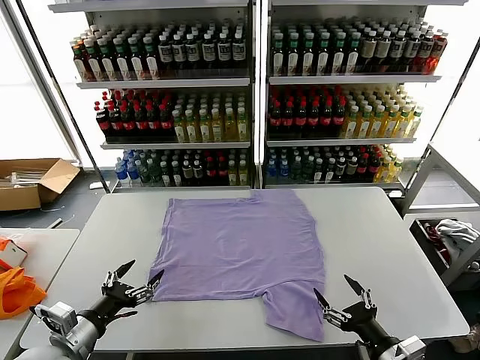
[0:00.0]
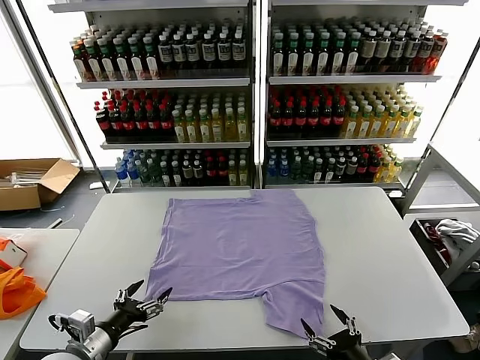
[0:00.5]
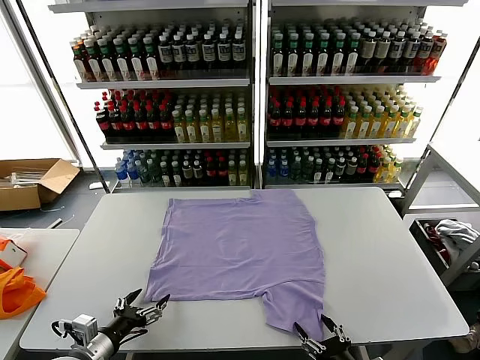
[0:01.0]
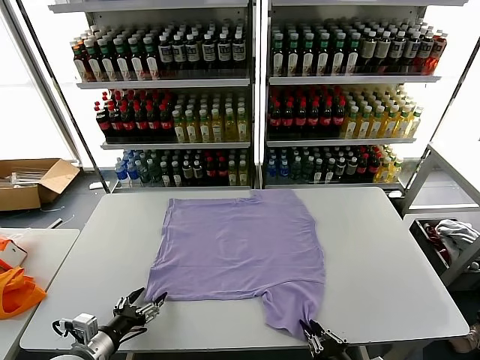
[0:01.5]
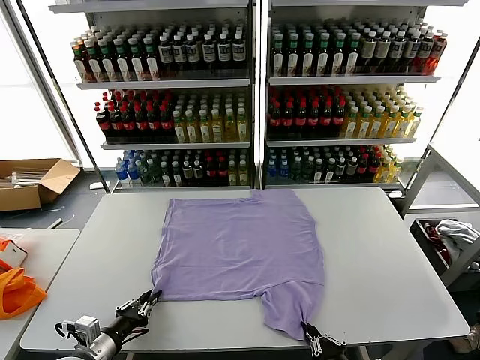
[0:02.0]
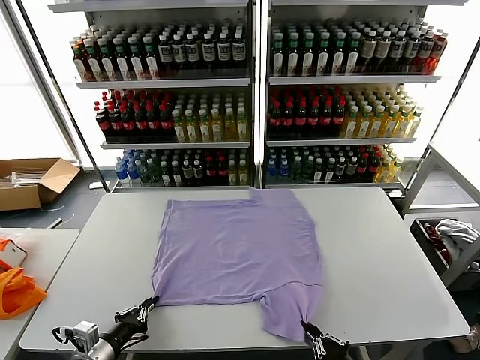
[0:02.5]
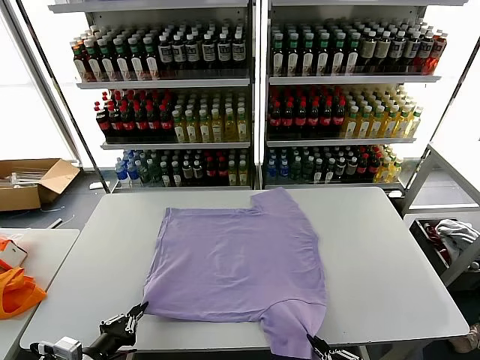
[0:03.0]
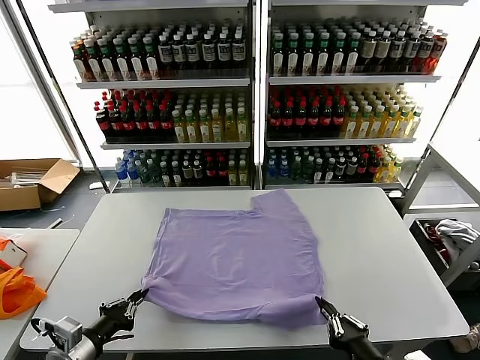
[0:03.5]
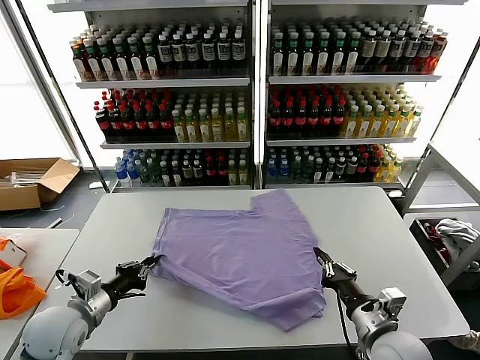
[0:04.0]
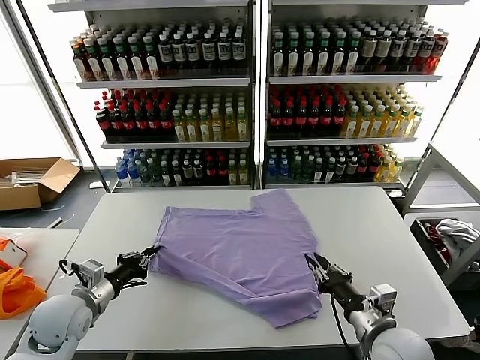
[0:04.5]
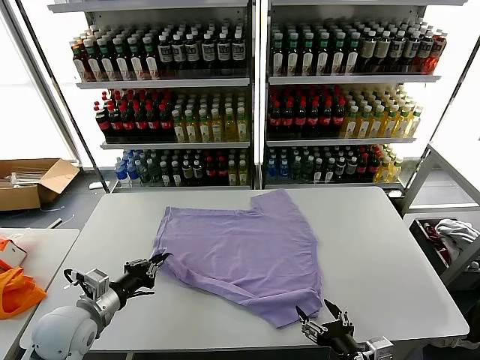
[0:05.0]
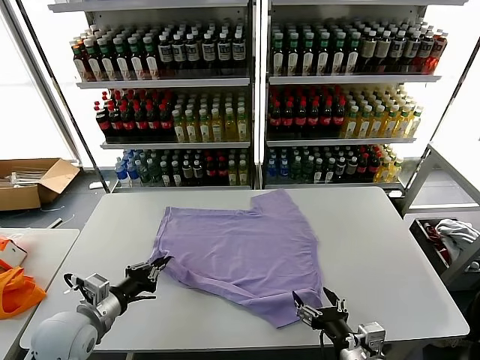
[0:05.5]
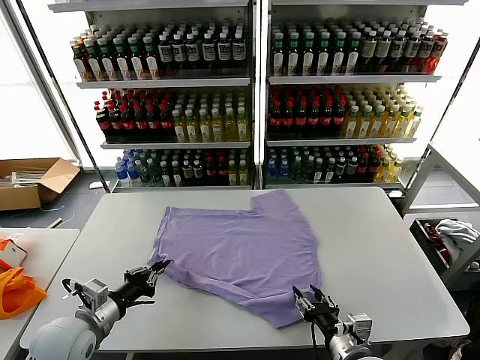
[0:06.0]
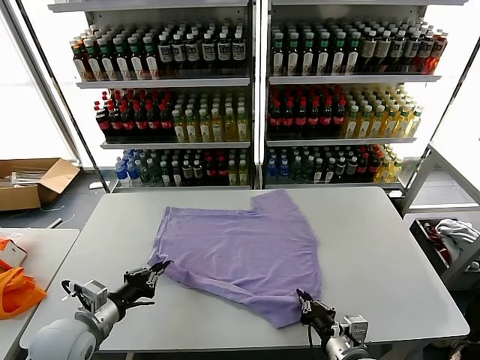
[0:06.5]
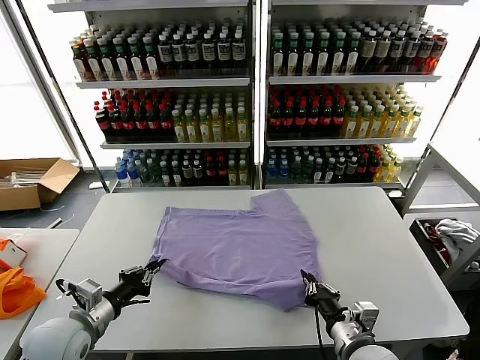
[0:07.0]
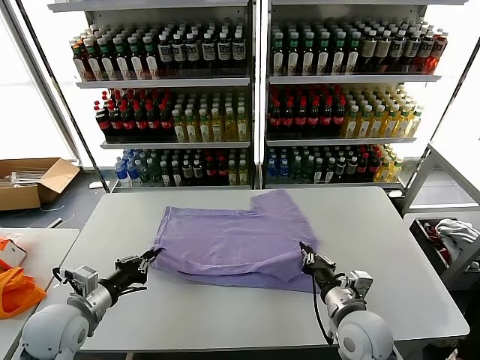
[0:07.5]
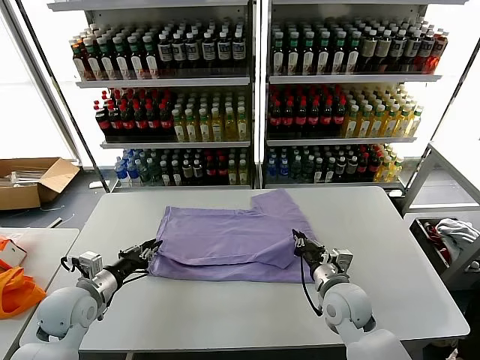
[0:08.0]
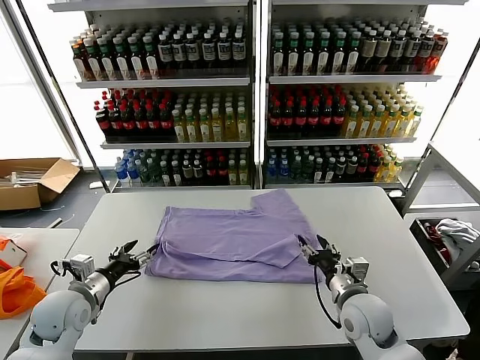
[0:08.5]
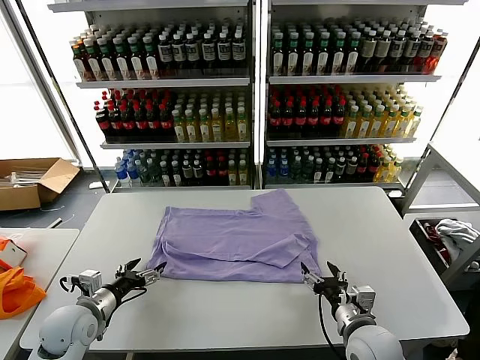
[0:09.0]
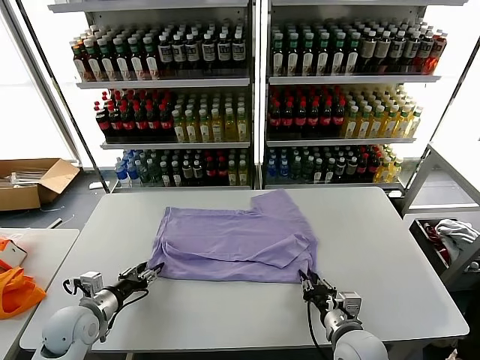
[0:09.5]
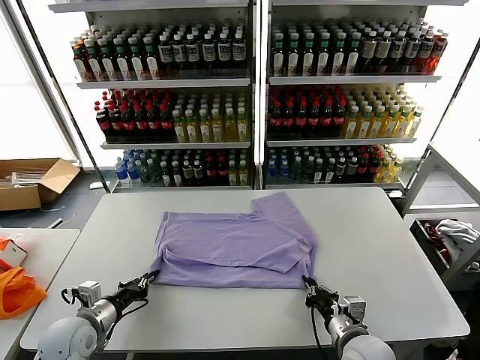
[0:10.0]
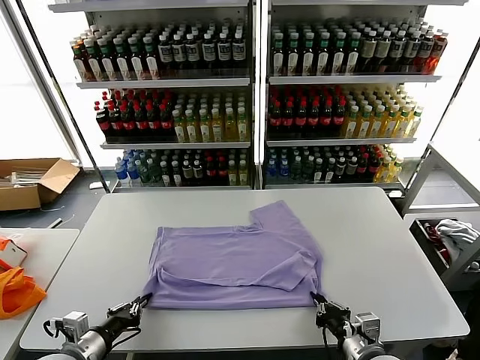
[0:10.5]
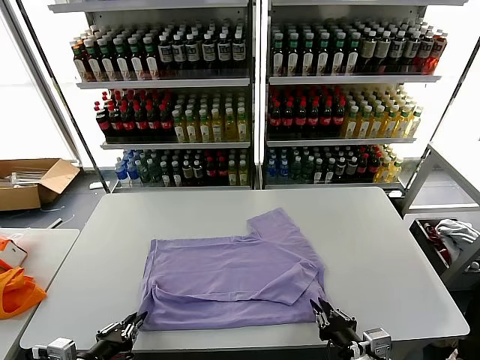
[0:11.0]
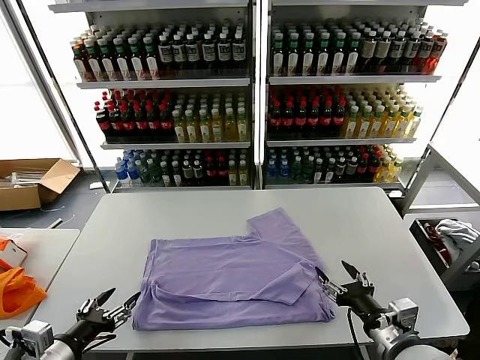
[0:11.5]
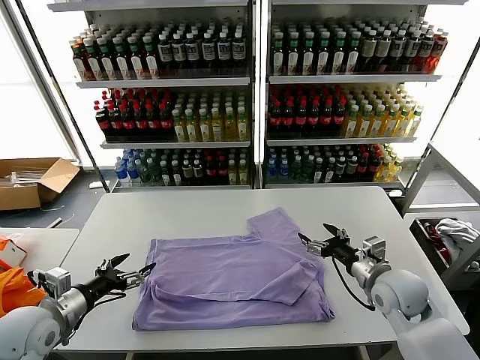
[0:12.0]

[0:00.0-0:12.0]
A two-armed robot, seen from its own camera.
Task of the whole recording: fold and organize the clothes.
Step, 0:00.0 to 0:02.0: use both grippers simultaneously to clamp the lower edge of the clothing fabric.
Step, 0:02.5 to 0:08.0: use both grippers to drag the lower edge of the fabric forward and fold it over the upper edge.
Step, 0:08.5 to 0:11.0: Drag the clothes downward with both gripper.
0:02.0 to 0:04.0: The left gripper goes approximately 10 cm upward and forward; the right gripper is displaced forward and upward by approximately 15 cm.
0:04.0 to 0:06.0: The right gripper goes roughly 5 cm backward, and opens up.
0:06.0 to 0:08.0: The right gripper travels forward by about 15 cm. The left gripper heads forward, covering approximately 5 cm.
0:08.0 to 0:10.0: The left gripper shifts by roughly 5 cm, and opens, then closes once more, while the right gripper goes about 10 cm backward, and opens, then closes again.
0:10.0 to 0:12.0: The left gripper is displaced upward by about 10 cm, travels backward and back again, roughly 15 cm each way, and opens its fingers. The right gripper travels forward, to the right and upward by about 15 cm, and opens its fingers.

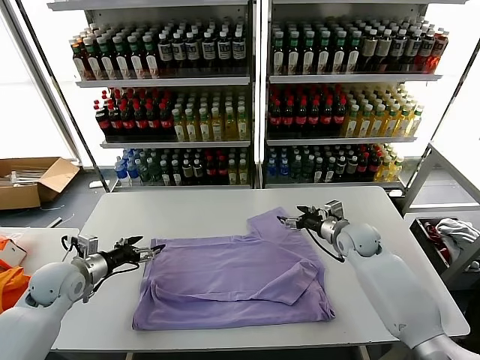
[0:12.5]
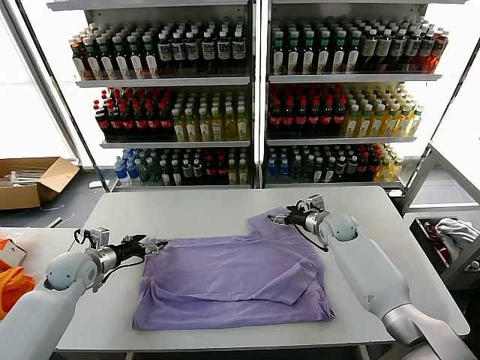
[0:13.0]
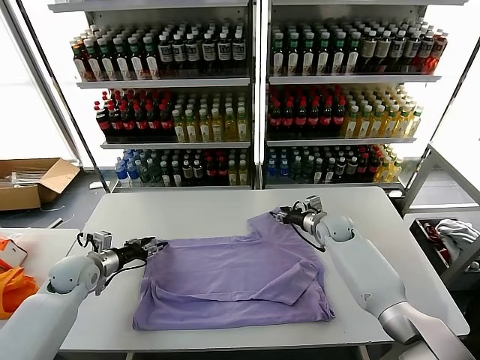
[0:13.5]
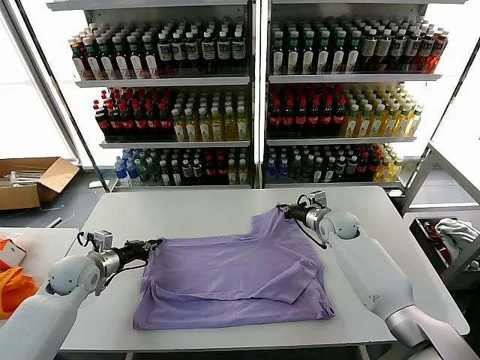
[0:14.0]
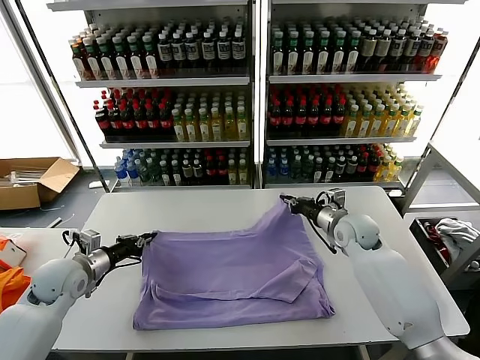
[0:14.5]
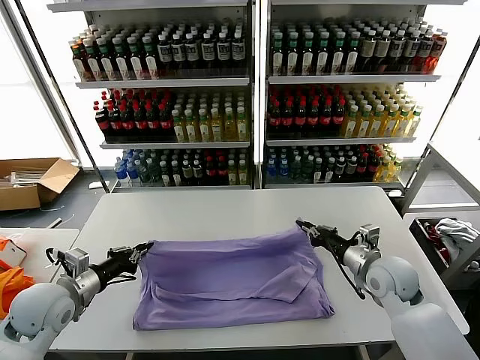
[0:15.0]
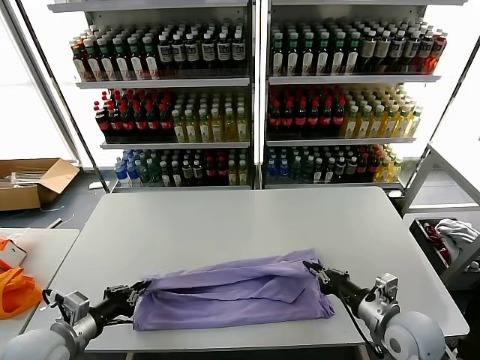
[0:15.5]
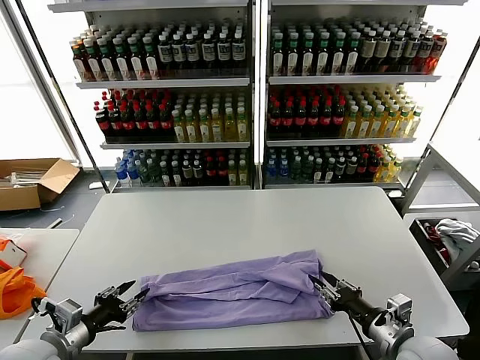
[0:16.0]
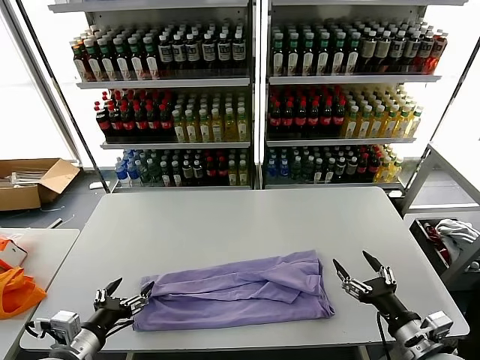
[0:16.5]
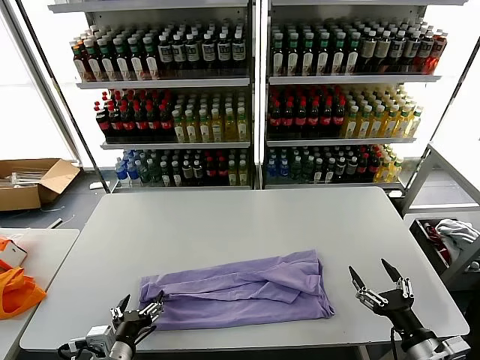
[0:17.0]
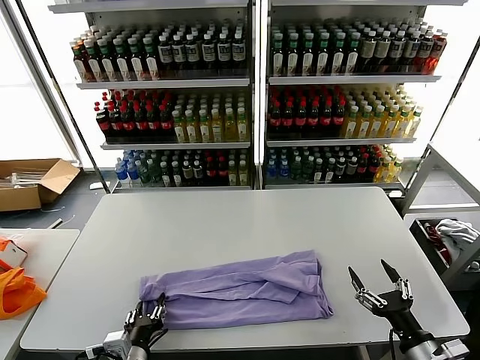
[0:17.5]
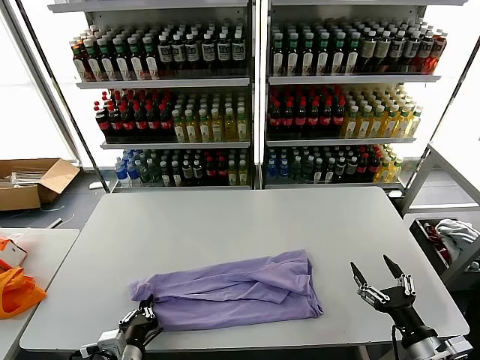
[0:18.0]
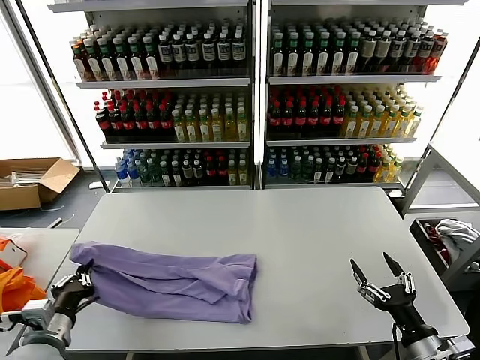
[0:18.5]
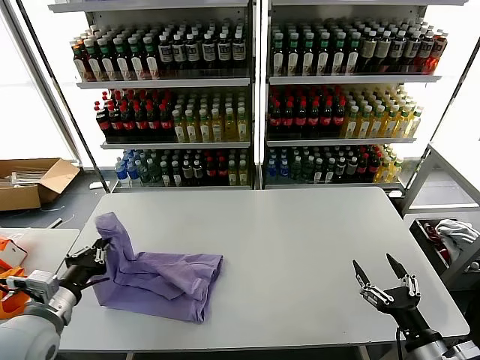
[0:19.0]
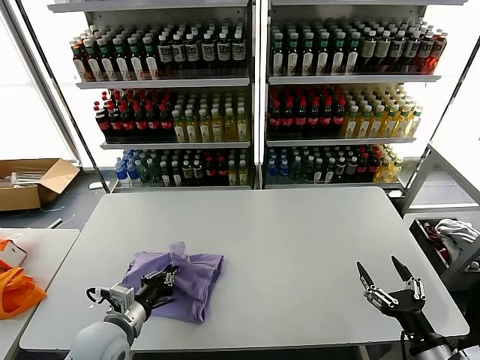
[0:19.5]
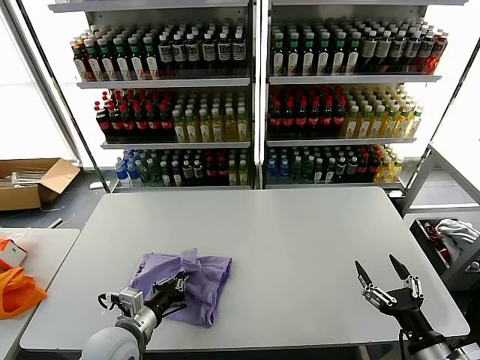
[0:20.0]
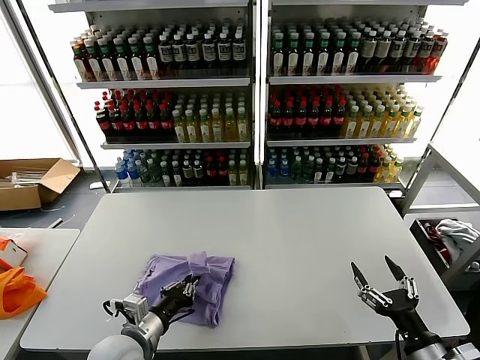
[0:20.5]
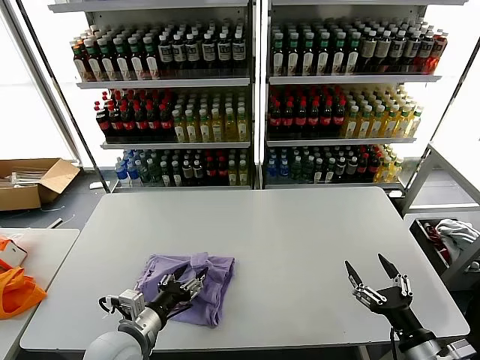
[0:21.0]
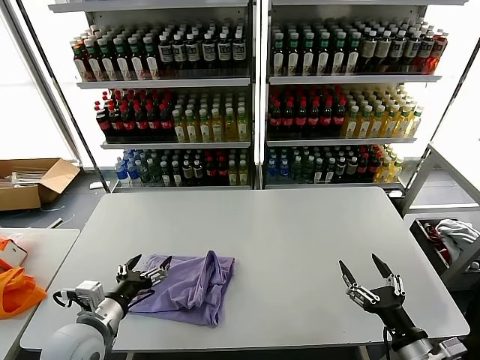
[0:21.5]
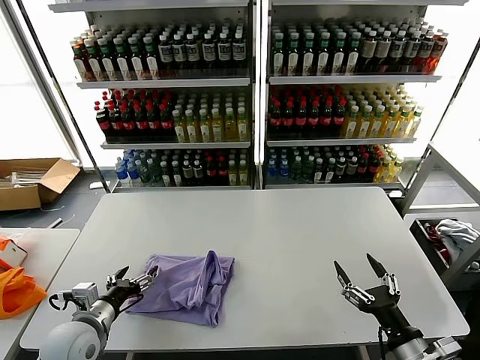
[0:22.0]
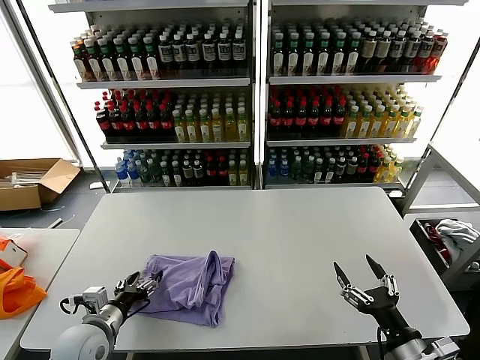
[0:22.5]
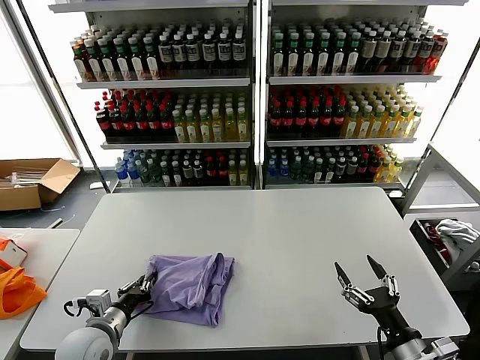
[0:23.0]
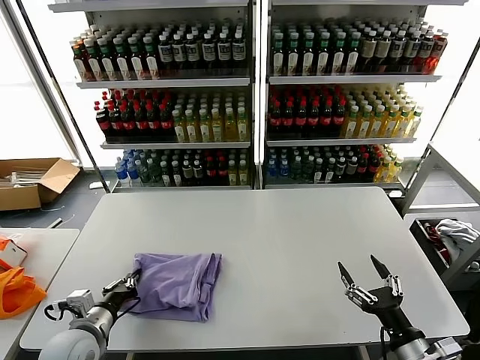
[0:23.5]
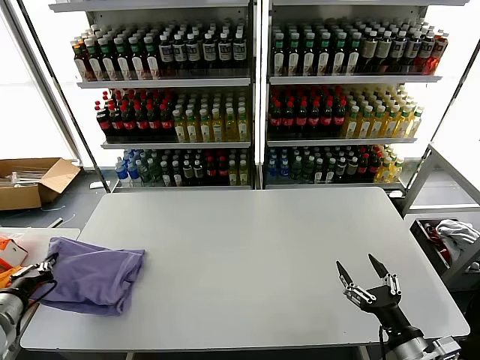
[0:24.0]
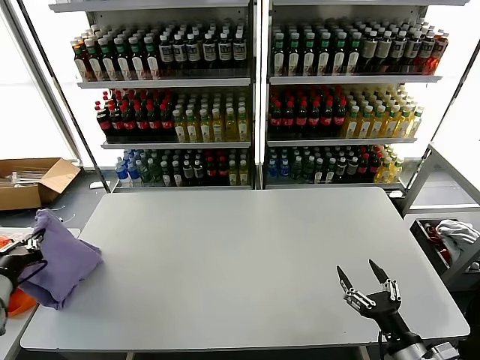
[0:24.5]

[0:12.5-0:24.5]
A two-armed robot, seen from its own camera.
Task of the whole recording: fold and organize the clothes.
Step, 0:12.5 to 0:14.0: use both grippers simultaneously to clamp the upper edge of the clothing fabric.
Step, 0:14.5 to 0:15.5: use both grippers to drag the upper edge of the fabric backward and fold it over the lower edge.
Step, 0:16.0 to 0:17.5: use the left gripper to clamp the left edge of the fabric.
Step, 0:18.0 to 0:21.0: use the left gripper to drag the left edge of the fabric to the left and folds it over the right edge.
0:12.5 to 0:14.5: The left gripper closes its fingers. Meanwhile the right gripper ends up roughly 5 cm from where it was, and closes up.
0:14.5 to 0:16.5: The left gripper heads backward, covering approximately 20 cm, and opens up. The right gripper shifts roughly 30 cm backward, and opens.
0:16.5 to 0:18.5: The left gripper moves some 10 cm to the right and comes back, and closes its fingers.
0:18.5 to 0:20.5: The left gripper shifts some 10 cm to the right.
0:20.5 to 0:22.5: The left gripper shifts some 10 cm to the left, and opens up.
0:22.5 to 0:24.5: The left gripper goes some 20 cm upward and to the left, and closes its fingers.

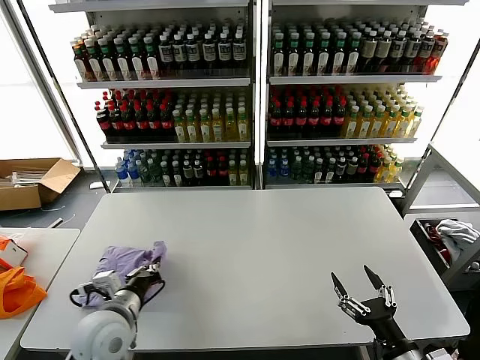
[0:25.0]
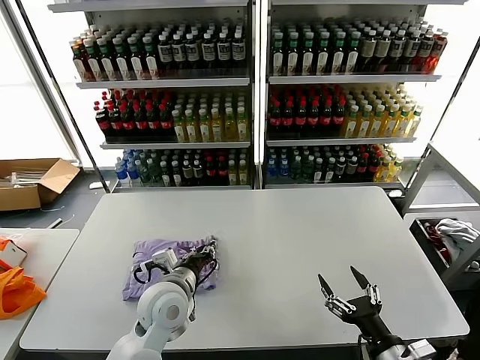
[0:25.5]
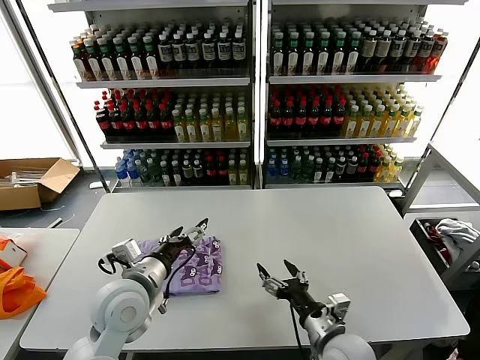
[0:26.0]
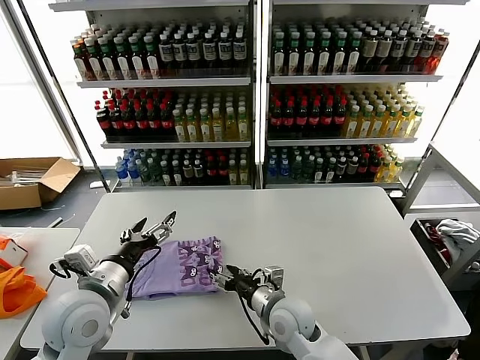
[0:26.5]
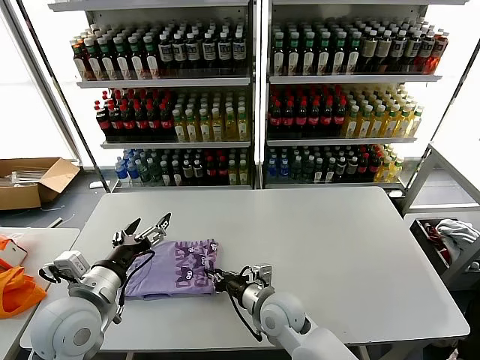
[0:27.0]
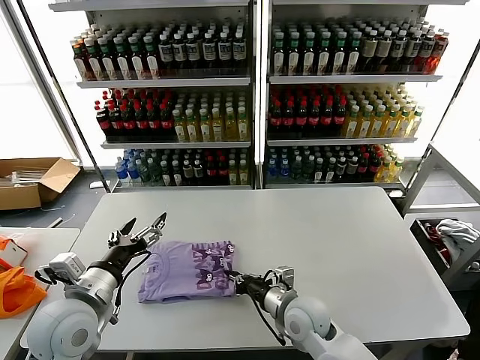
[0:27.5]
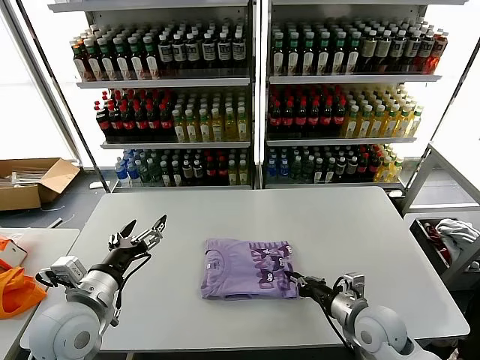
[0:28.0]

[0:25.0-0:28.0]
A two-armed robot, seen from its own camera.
Task of the whole recording: fold and organize the clothes.
0:25.0 to 0:26.5: The left gripper heads upward, covering roughly 5 cm, reaches roughly 10 cm to the right, then returns, and opens up, while the right gripper travels to the left and forward by approximately 30 cm.
0:26.5 to 0:28.0: The right gripper is displaced to the right by roughly 15 cm, and closes its fingers.
